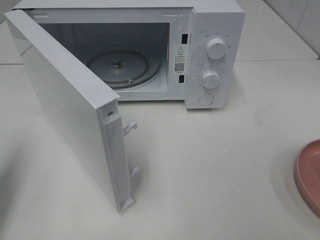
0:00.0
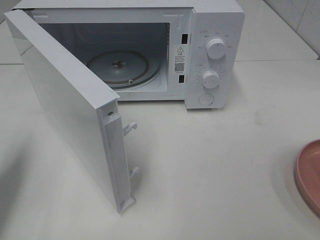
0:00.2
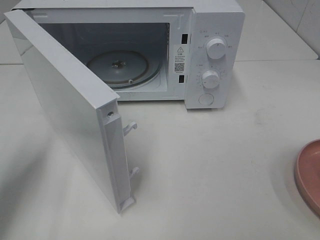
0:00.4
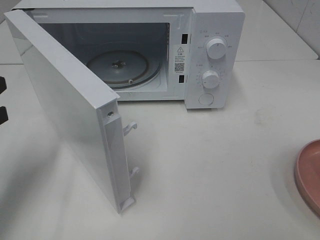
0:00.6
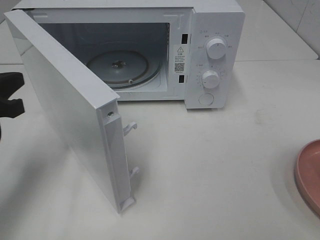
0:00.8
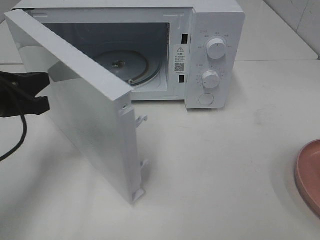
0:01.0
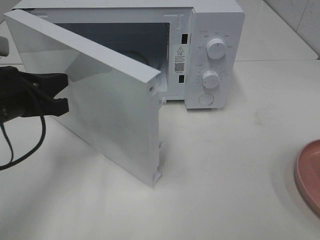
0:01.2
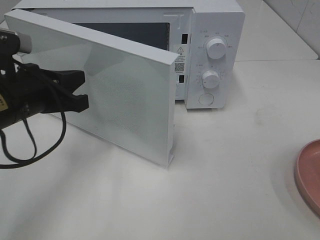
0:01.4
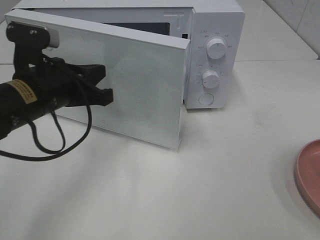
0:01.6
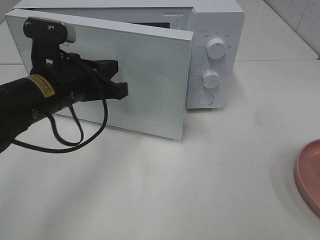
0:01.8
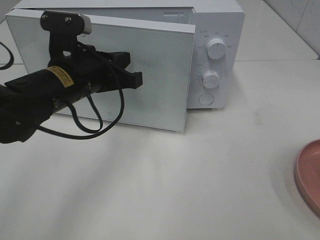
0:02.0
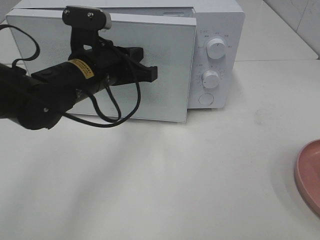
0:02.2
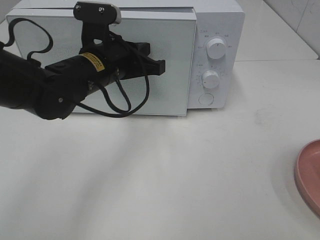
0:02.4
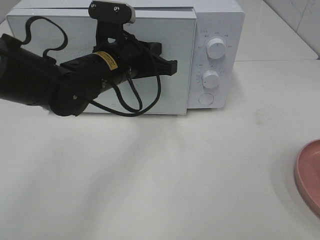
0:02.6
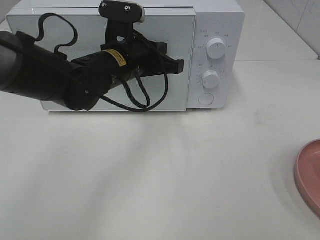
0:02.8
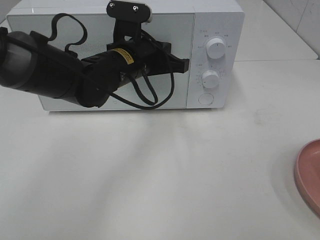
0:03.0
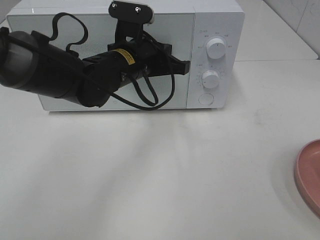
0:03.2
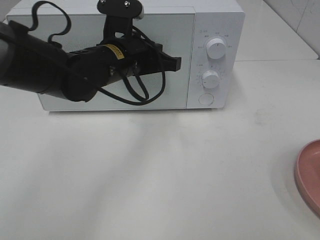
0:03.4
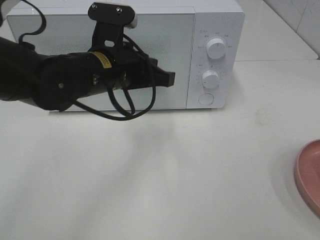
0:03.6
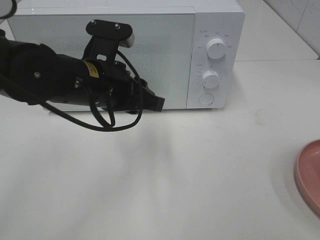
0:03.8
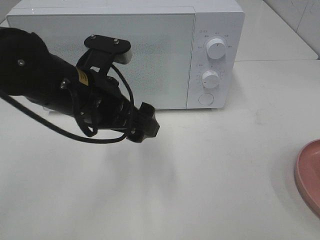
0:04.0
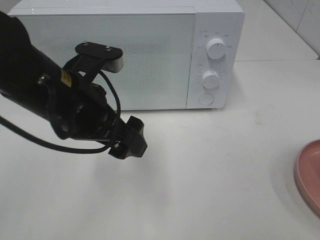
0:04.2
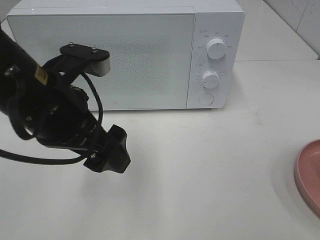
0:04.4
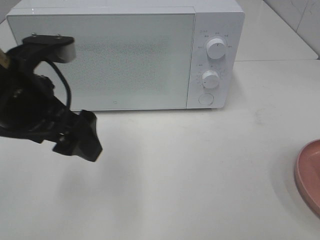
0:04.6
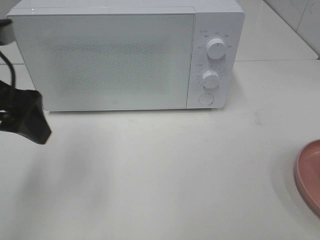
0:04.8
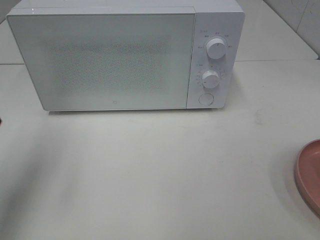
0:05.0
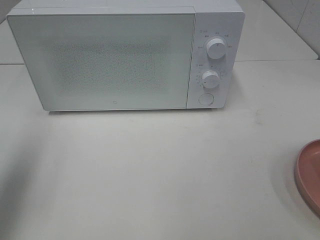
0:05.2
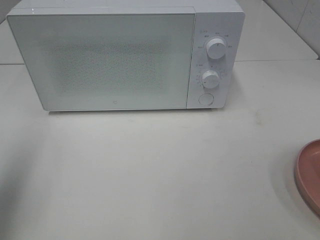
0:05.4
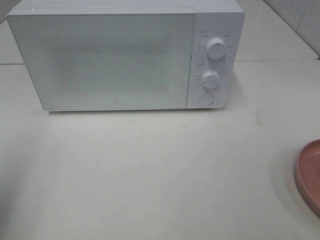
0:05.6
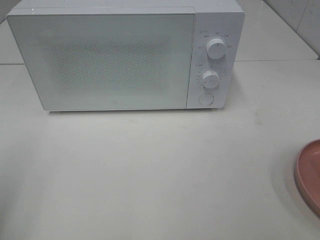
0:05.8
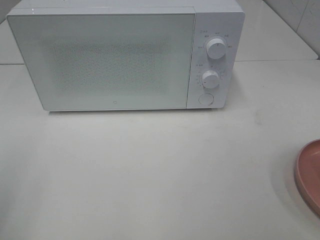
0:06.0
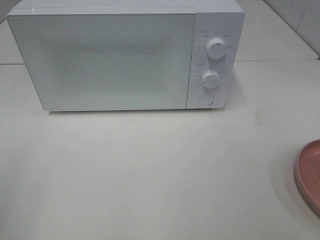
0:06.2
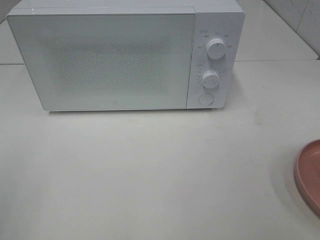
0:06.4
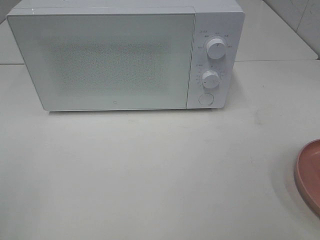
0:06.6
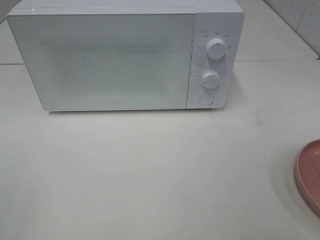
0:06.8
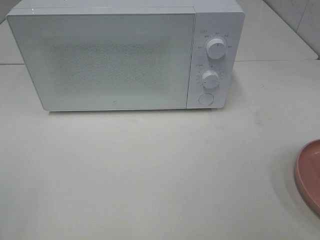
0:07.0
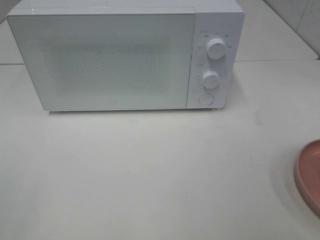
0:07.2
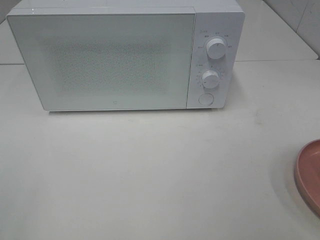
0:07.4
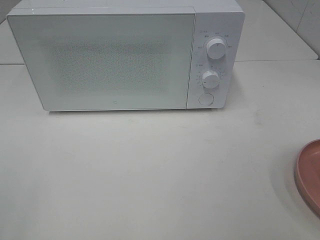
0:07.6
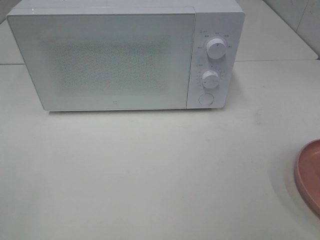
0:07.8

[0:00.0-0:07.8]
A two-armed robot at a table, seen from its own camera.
Task of the whole recording: Heat the burger.
Step, 0:00.0 to 0:03.4: Left hand: close the microwave door.
0:00.0 to 0:01.6: The left gripper heads to the right and forward, covering roughly 20 cm.
0:01.6 to 0:03.2: The left gripper is displaced to the right and forward by roughly 15 cm.
0:03.2 to 0:04.6: The left gripper travels backward, to the left and upward by about 20 cm, and opens.
0:04.6 to 0:06.2: The left gripper travels backward and to the left by about 20 cm.

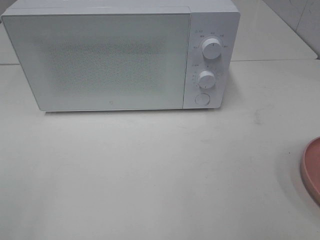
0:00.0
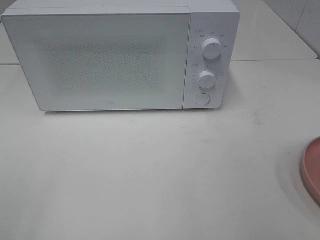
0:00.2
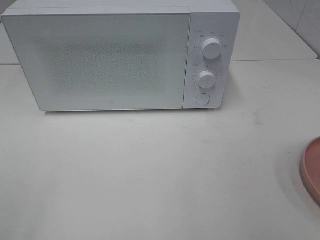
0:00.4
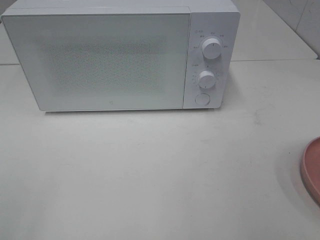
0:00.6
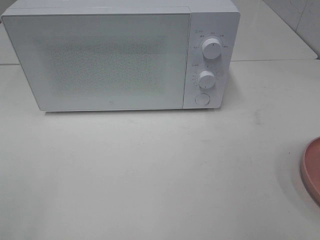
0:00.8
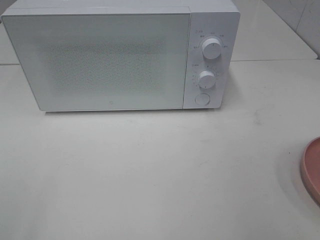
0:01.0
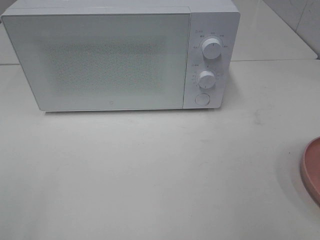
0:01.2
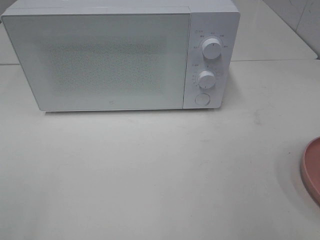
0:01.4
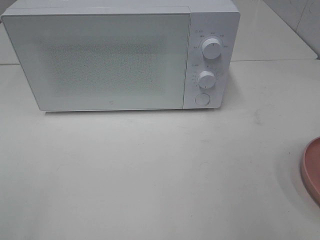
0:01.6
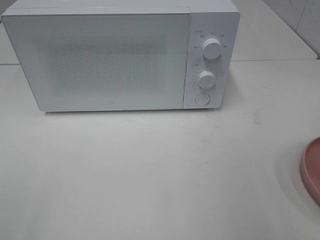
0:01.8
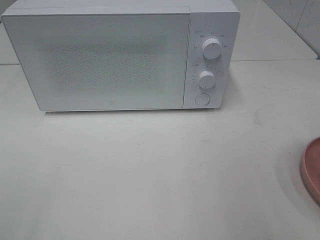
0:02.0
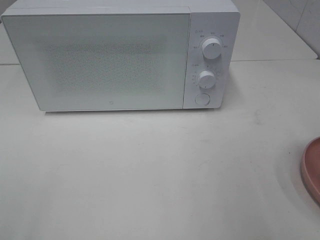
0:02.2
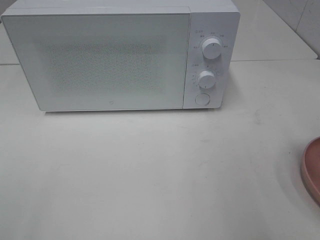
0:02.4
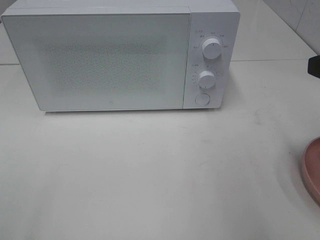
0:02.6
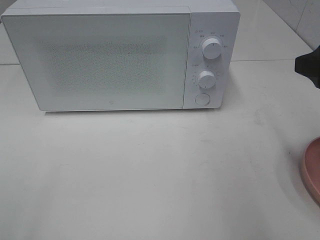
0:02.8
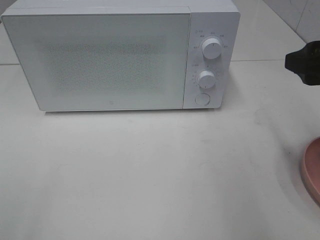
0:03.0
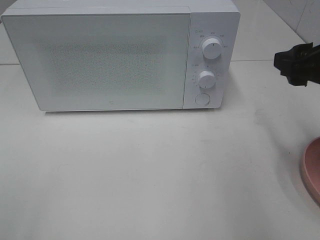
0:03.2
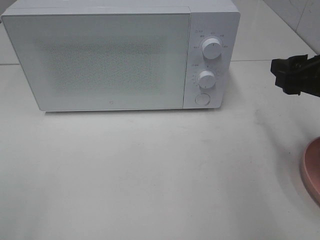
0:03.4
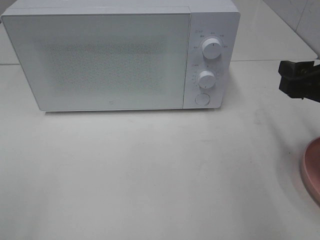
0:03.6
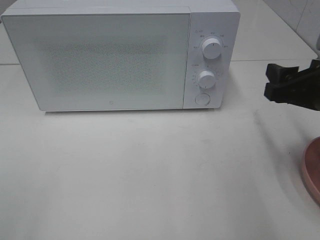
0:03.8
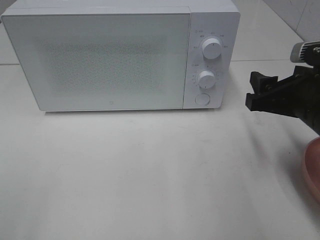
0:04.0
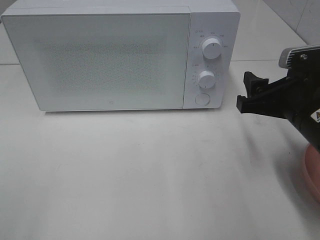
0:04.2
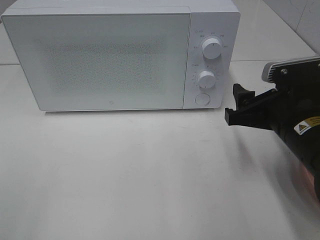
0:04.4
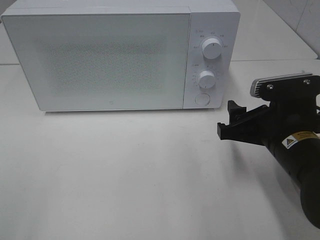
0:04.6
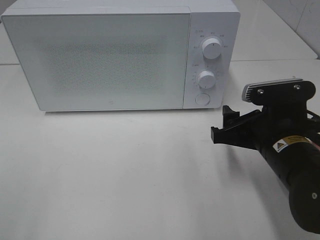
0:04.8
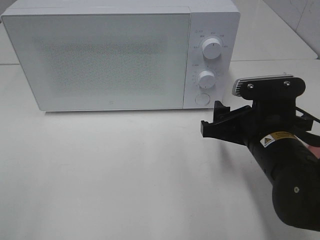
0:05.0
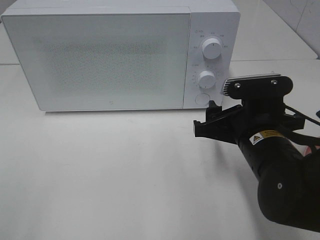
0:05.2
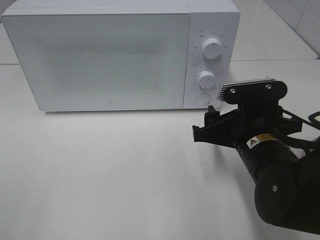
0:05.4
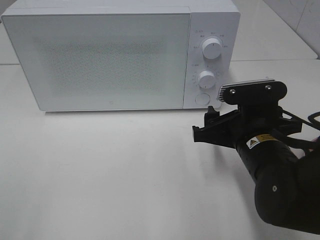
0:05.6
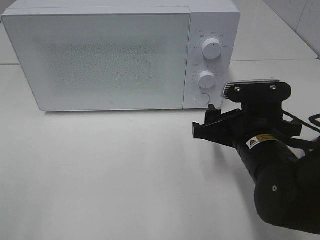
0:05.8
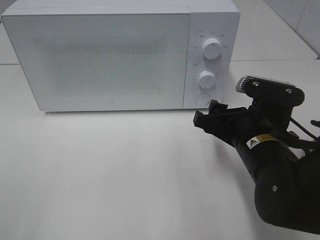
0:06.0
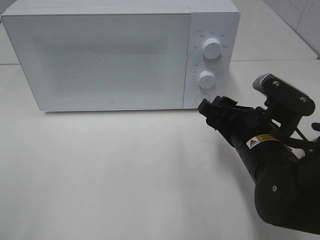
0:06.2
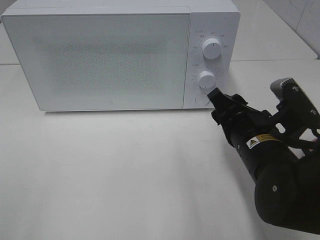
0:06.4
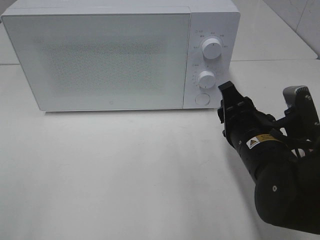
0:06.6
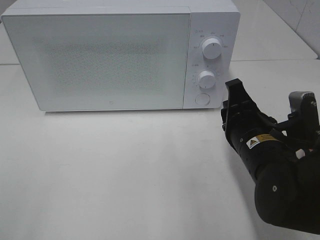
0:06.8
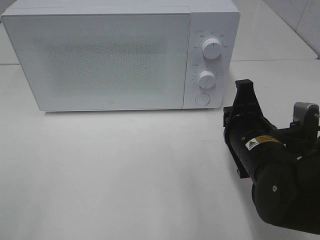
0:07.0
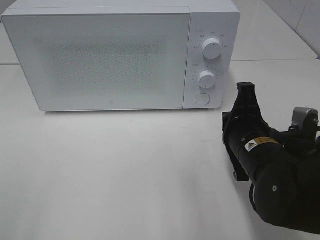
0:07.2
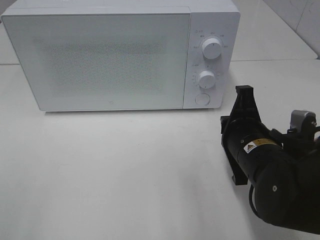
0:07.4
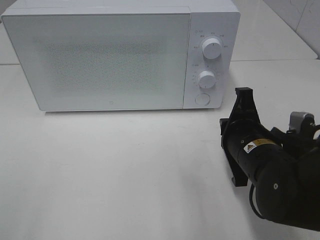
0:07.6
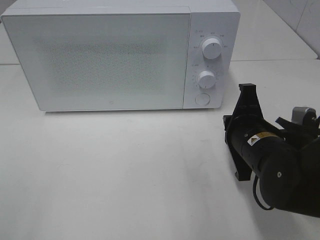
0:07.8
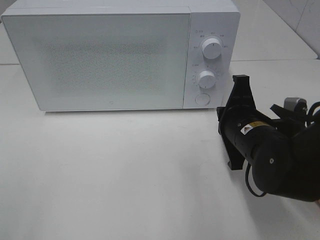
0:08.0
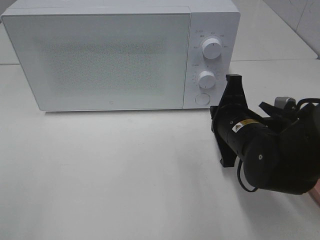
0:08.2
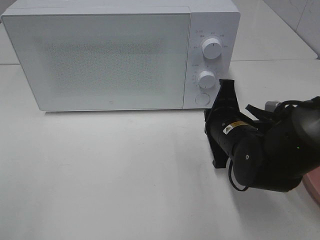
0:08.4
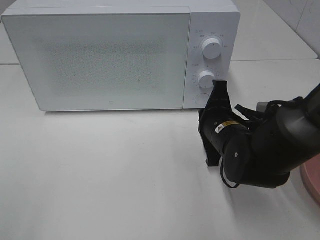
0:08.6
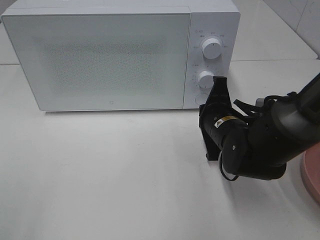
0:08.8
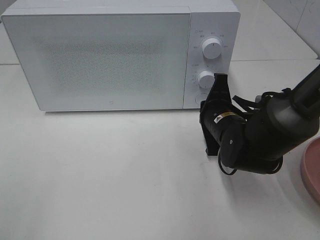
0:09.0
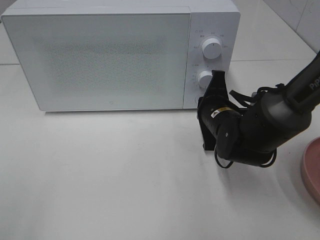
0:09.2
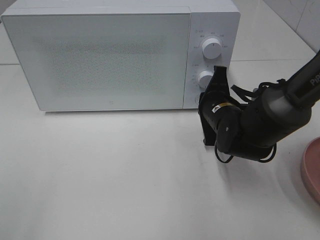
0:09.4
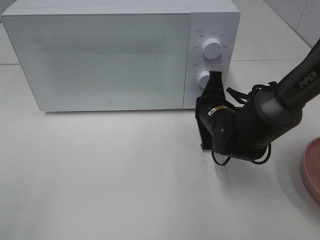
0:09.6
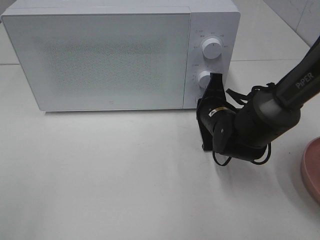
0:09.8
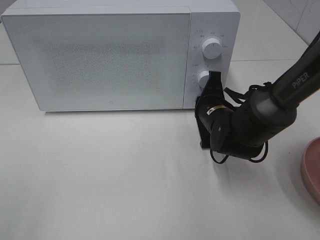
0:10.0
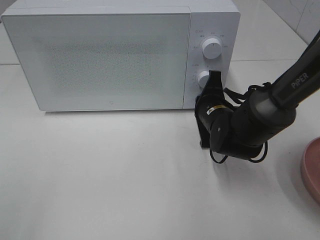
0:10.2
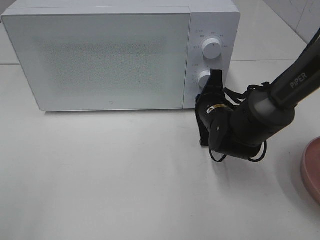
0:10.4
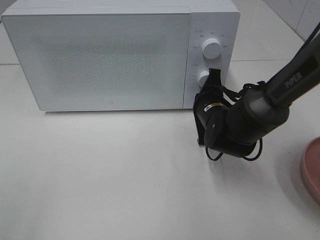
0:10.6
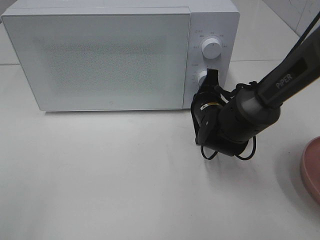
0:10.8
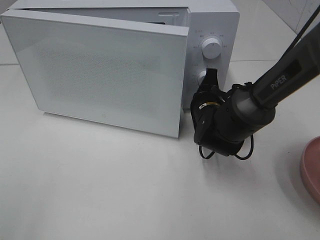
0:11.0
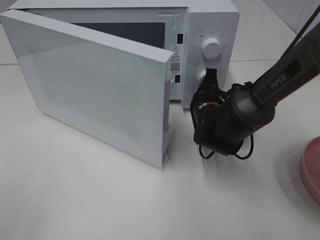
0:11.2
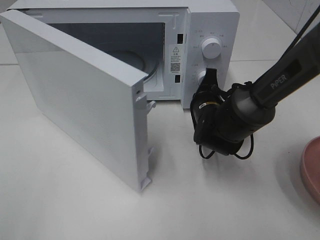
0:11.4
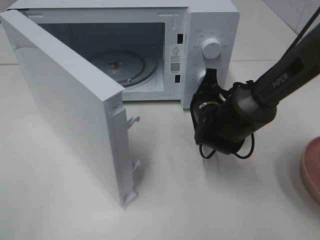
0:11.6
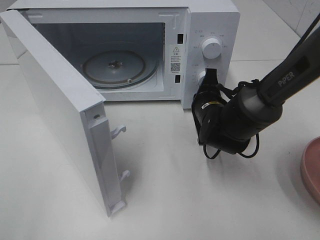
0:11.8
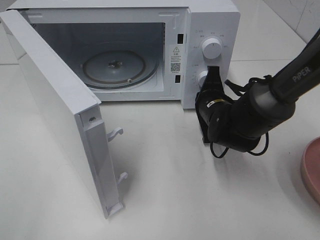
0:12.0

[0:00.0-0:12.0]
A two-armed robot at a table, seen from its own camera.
Task of the whole recording: Heat the burger.
0:01.6 to 0:03.0: The right gripper moves forward, roughly 10 cm.
0:03.0 to 0:04.4: The right gripper goes about 10 cm downward and to the left.
0:04.4 to 0:06.0: The right gripper shifts roughly 5 cm to the left.
0:06.0 to 0:07.6: The right gripper closes up.
0:07.6 to 0:09.0: The right gripper goes about 10 cm forward.
0:09.0 to 0:10.4: The grippers make only small movements.

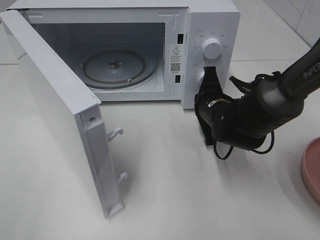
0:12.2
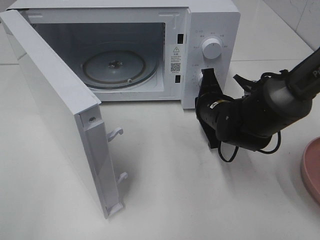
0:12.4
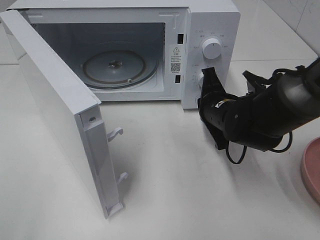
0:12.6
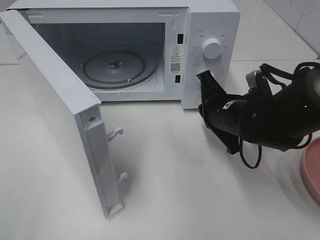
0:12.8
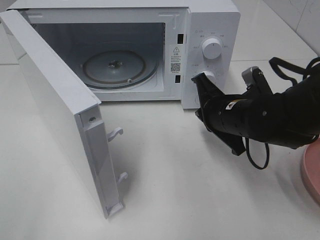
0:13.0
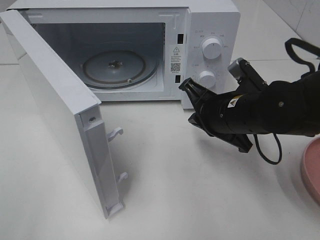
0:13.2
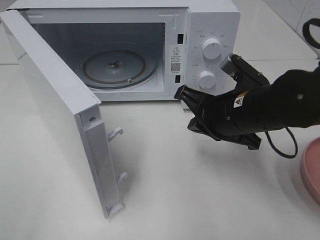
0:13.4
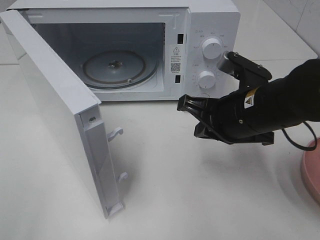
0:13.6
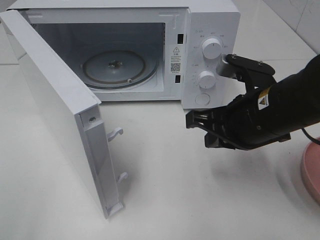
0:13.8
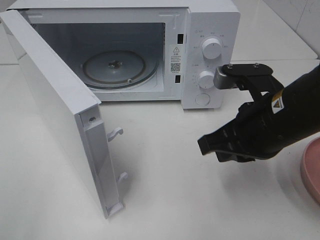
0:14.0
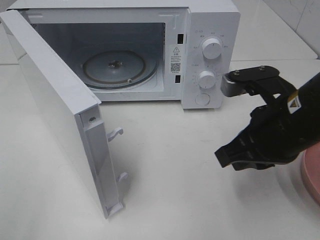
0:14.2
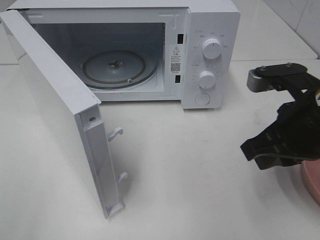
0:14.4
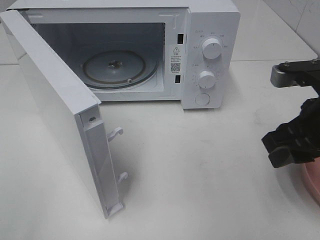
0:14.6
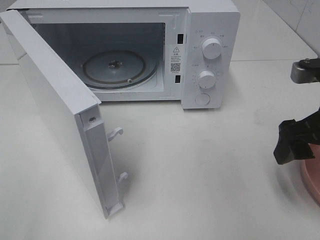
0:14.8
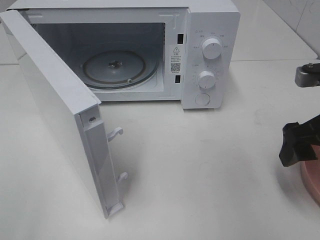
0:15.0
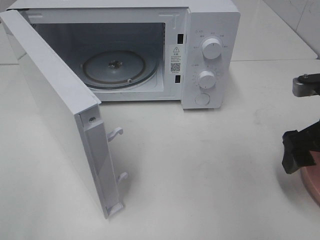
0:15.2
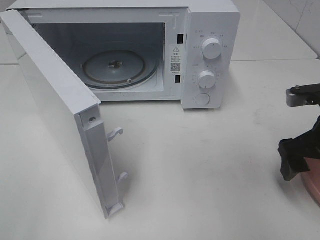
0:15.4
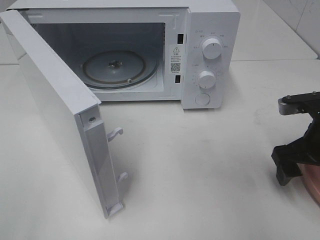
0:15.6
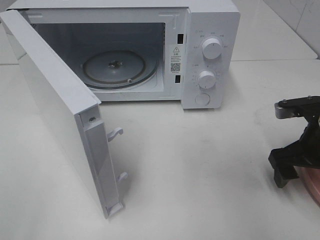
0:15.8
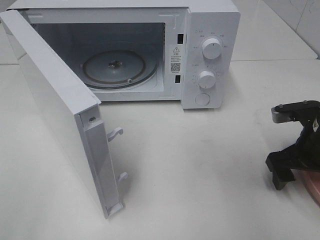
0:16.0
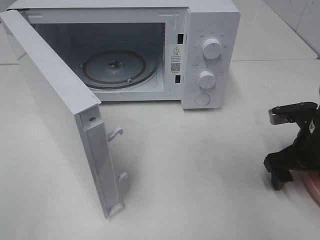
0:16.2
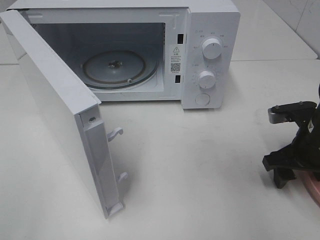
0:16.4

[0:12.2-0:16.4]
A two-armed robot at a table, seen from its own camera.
Task of the whole recording: Heat the burger.
0:12.2 to 0:13.6: The right gripper is displaced backward and upward by approximately 15 cm.
0:13.6 to 0:15.0: The right gripper goes some 10 cm to the right, and opens up.
0:15.0 to 0:16.4: The right gripper travels downward by roughly 10 cm.
